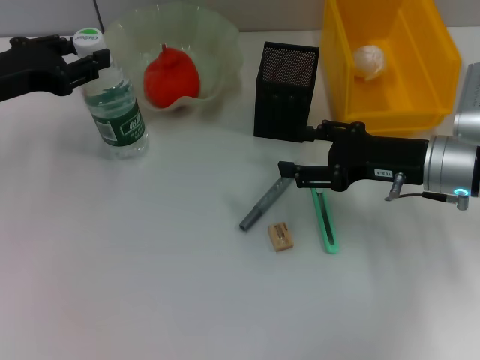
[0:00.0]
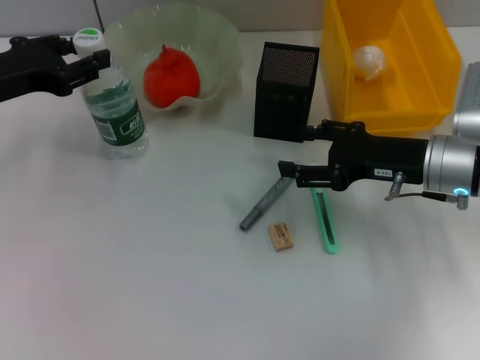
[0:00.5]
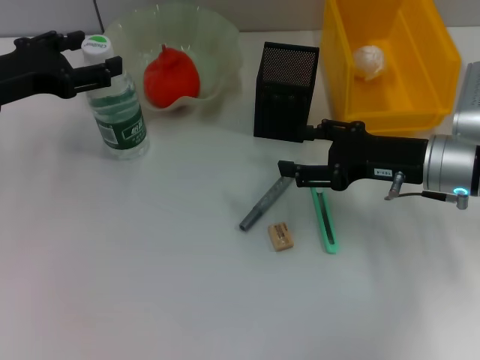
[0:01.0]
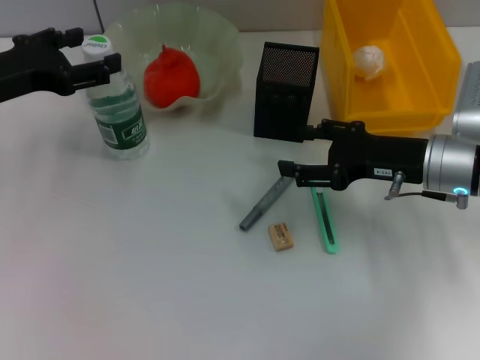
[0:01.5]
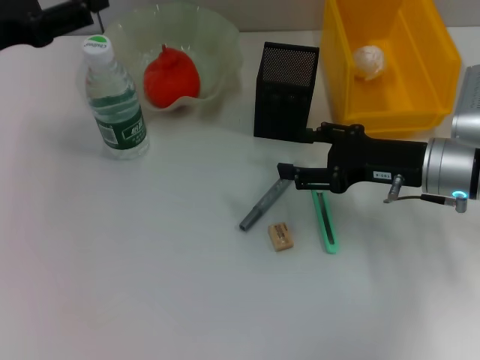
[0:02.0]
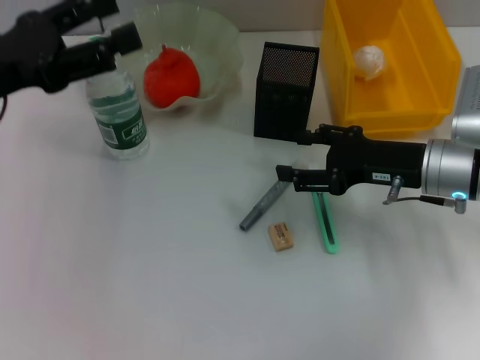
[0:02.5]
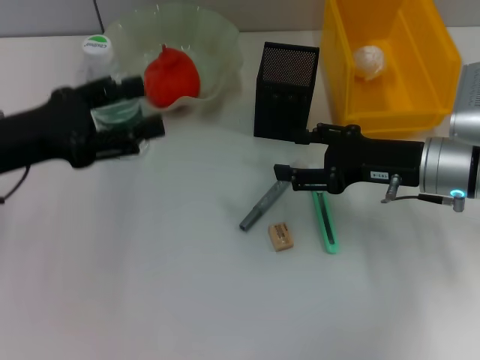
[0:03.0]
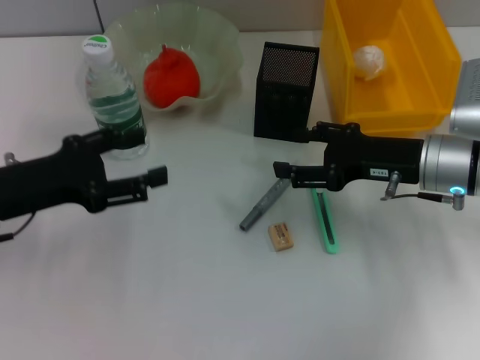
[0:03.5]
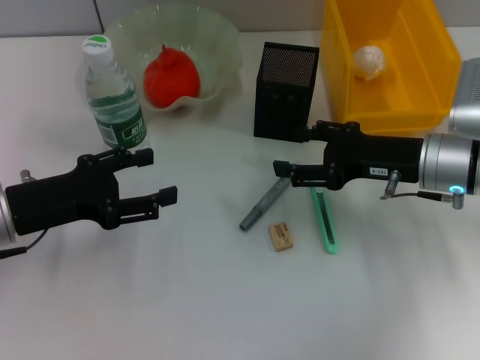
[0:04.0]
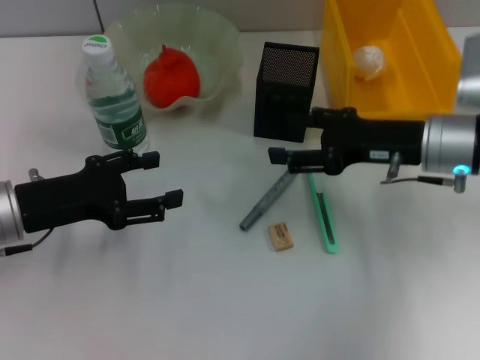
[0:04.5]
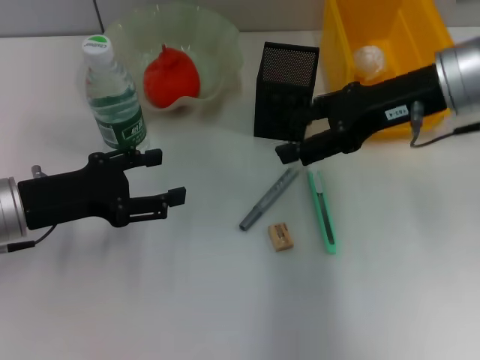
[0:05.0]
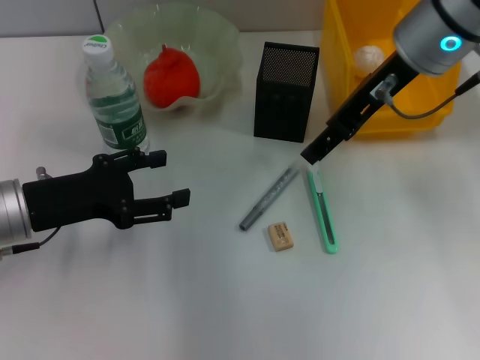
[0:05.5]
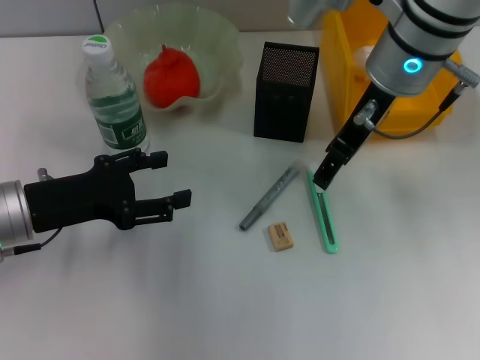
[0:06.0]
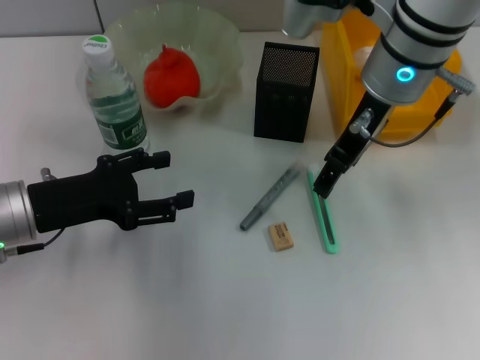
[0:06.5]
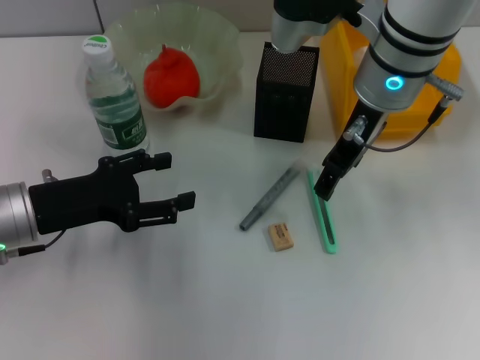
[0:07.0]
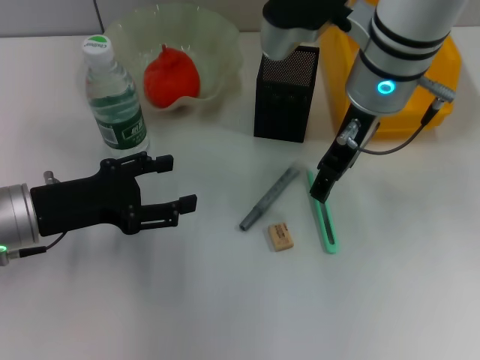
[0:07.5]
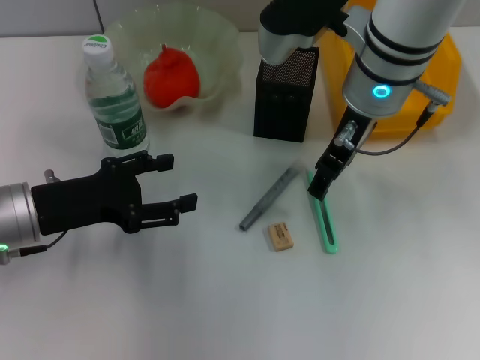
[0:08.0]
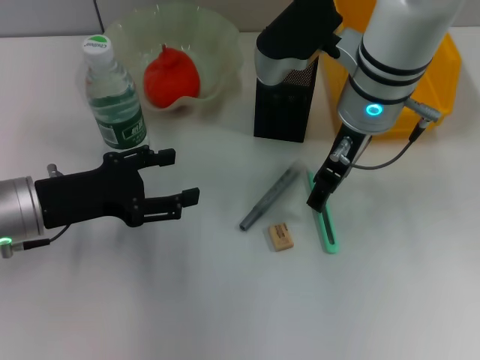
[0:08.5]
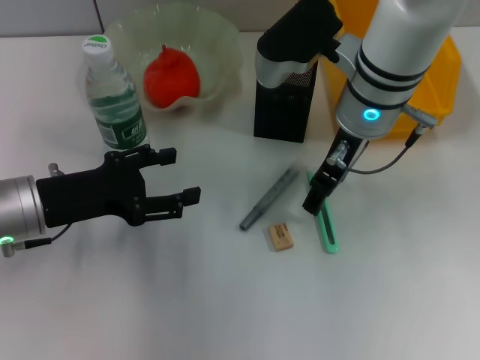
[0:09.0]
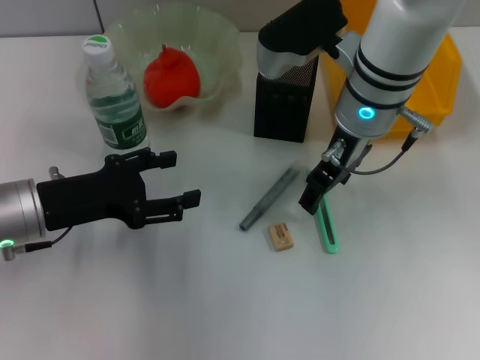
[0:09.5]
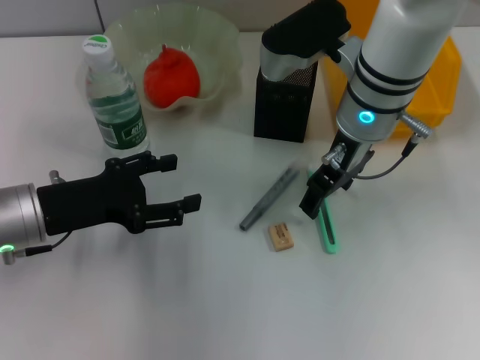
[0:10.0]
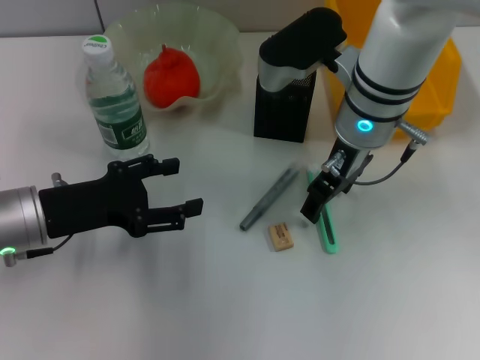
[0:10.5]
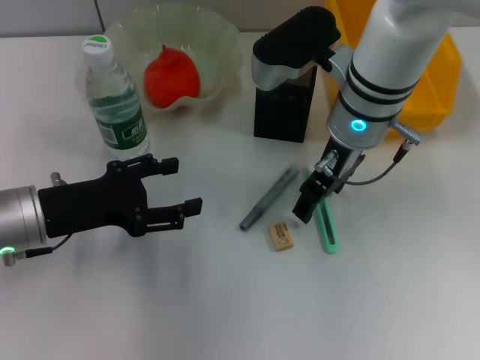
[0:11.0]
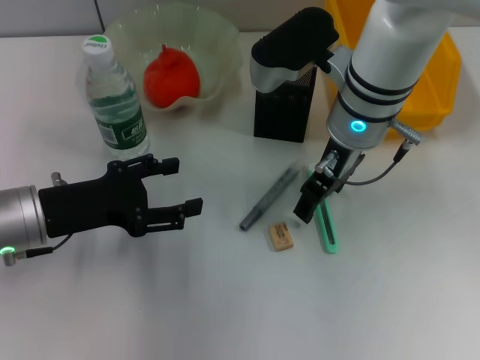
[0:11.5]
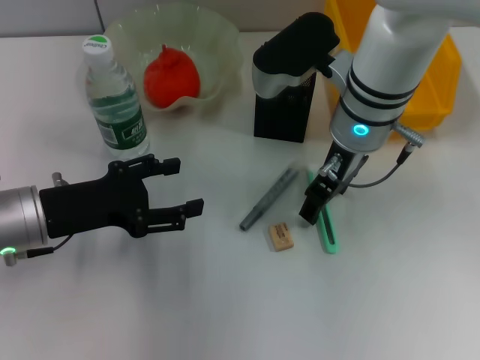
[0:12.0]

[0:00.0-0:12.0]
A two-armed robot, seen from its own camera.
0:00.0 to 0:02.0: The left gripper opens.
0:02.0 to 0:04.0: The left gripper moves downward and backward, roughly 10 cm.
0:04.0 to 0:06.0: The right gripper travels upward, to the left and forward by some 15 cm.
0:06.0 to 0:10.0: The grippers make only small movements.
0:10.0 to 0:12.0: Both grippers stay about where they are.

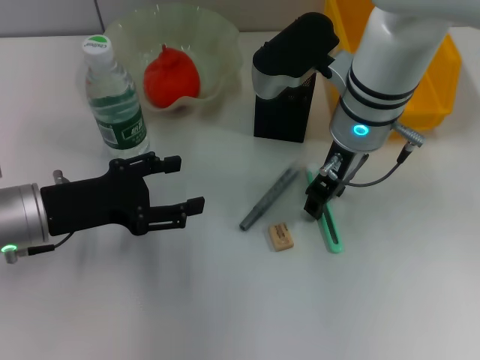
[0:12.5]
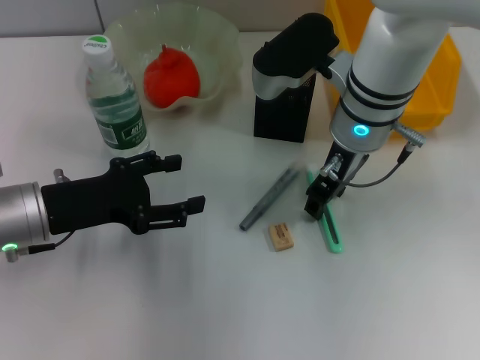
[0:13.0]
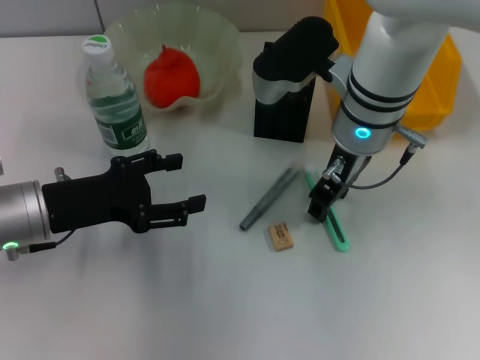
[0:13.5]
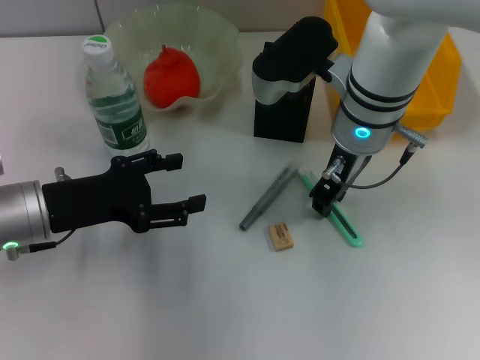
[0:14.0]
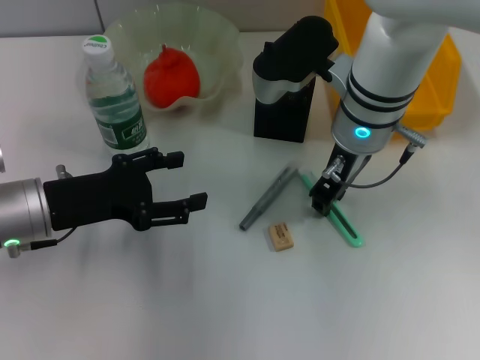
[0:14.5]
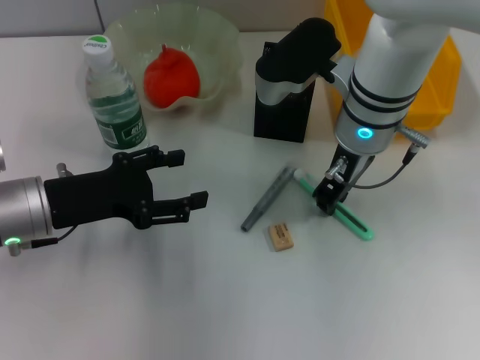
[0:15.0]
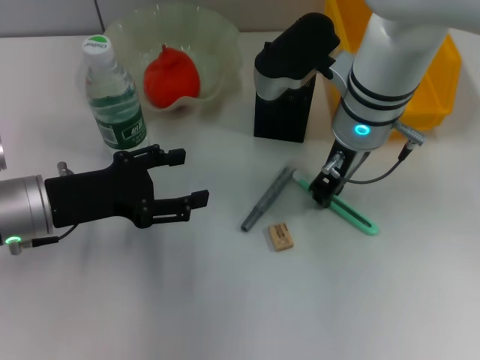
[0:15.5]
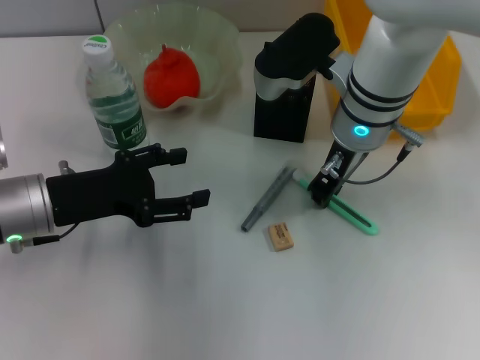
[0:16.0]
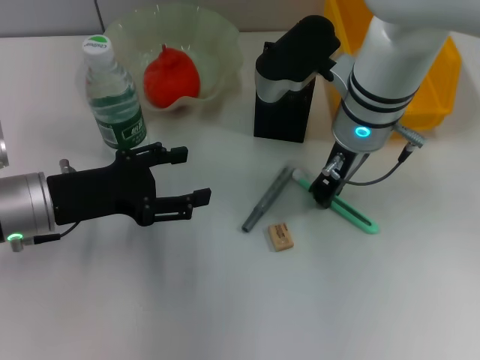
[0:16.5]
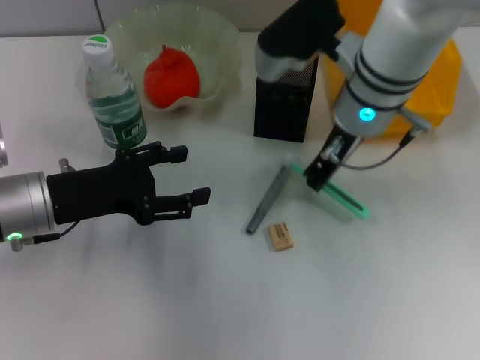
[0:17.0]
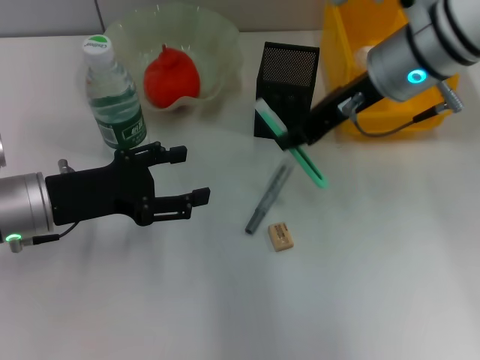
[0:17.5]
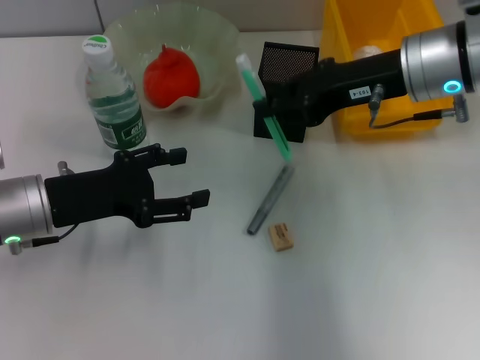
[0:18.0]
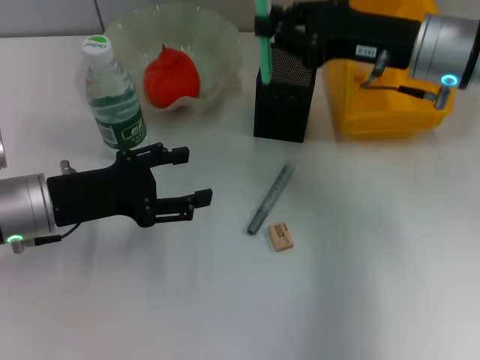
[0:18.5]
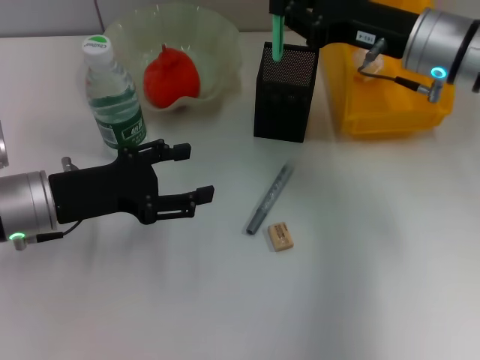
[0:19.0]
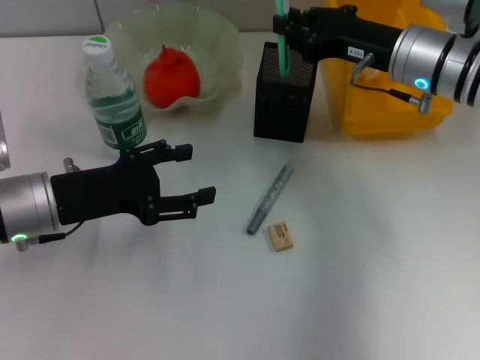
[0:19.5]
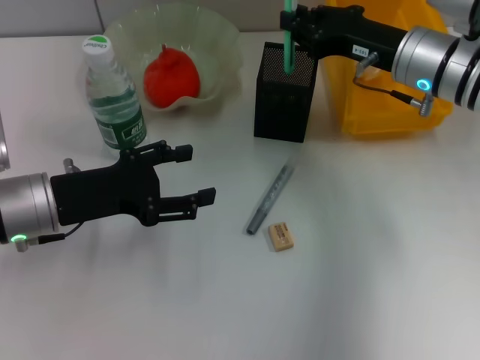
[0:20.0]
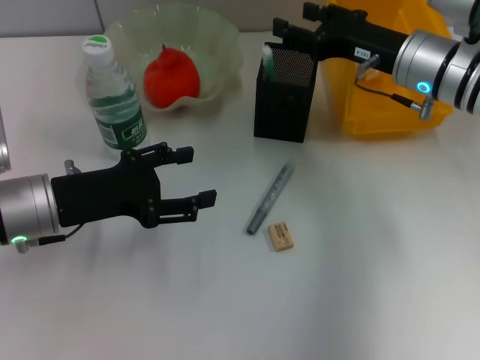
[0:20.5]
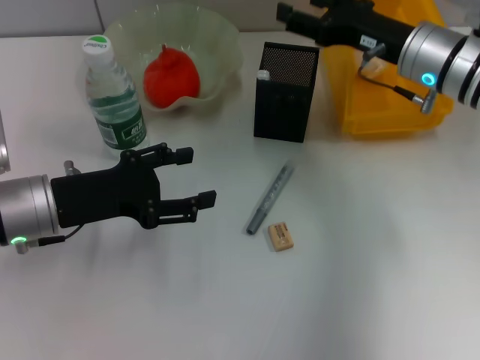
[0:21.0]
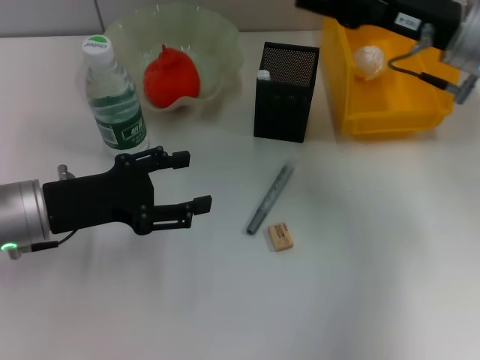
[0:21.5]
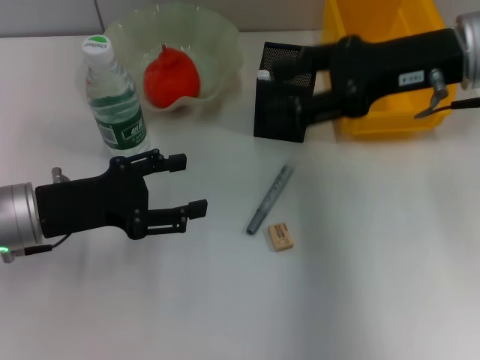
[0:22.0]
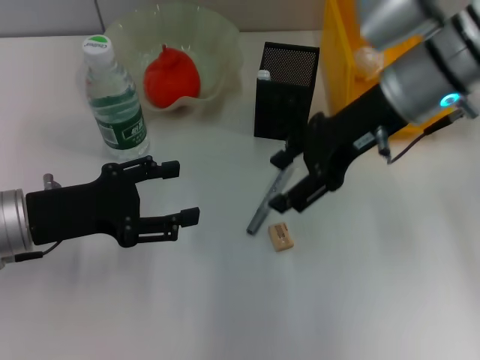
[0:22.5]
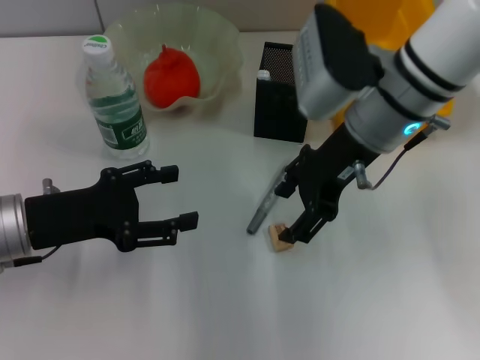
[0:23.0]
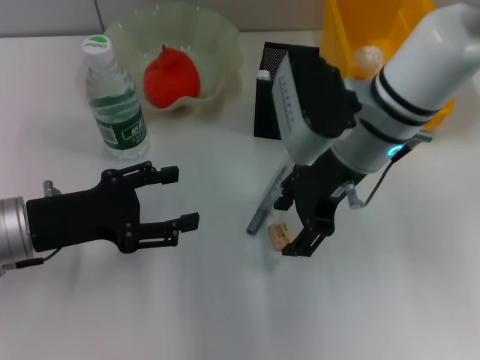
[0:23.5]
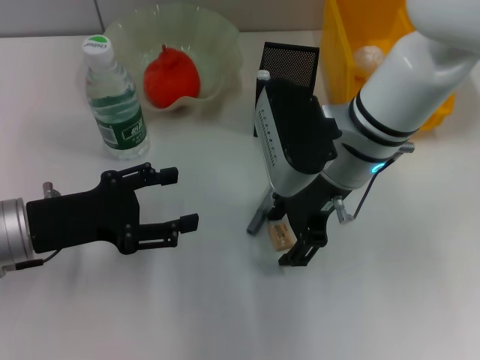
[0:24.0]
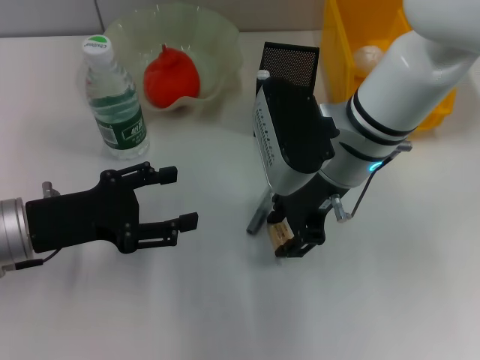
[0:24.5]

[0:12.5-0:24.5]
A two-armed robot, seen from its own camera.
Step, 0:12.5 to 0:16.0: Grab the blue utility knife with the right hand.
Step, 0:16.5 to 0:20.5: Place the blue utility knife into the pen holder with the right hand.
0:12.5 to 0:16.5: Neither gripper changes place.
0:16.5 to 0:18.5: The right gripper moves to the right, approximately 10 cm.
0:18.5 to 0:20.5: The right gripper ends up about 5 cm from where it was, and opens its fingers.
0:20.5 to 0:22.5: The right gripper travels upward by roughly 5 cm, and opens.
0:22.5 to 0:24.5: The right gripper travels to the left and downward by approximately 10 cm.

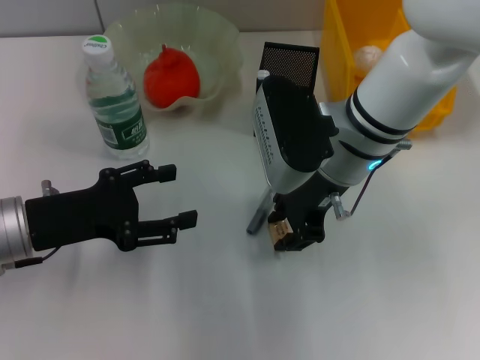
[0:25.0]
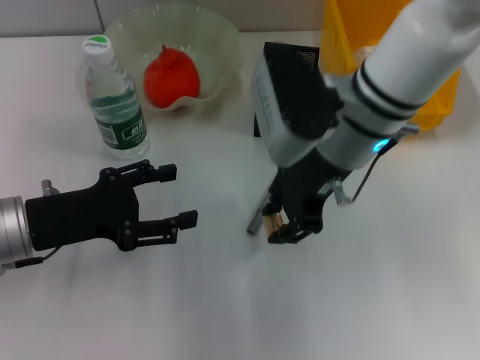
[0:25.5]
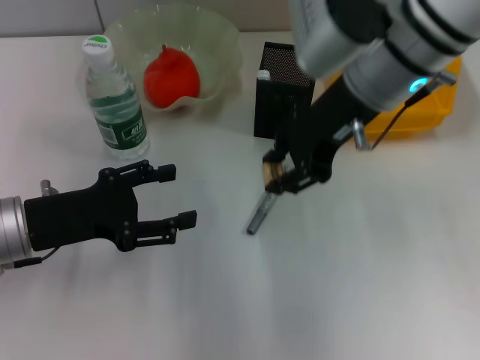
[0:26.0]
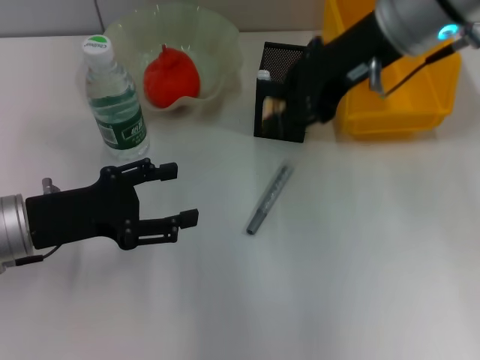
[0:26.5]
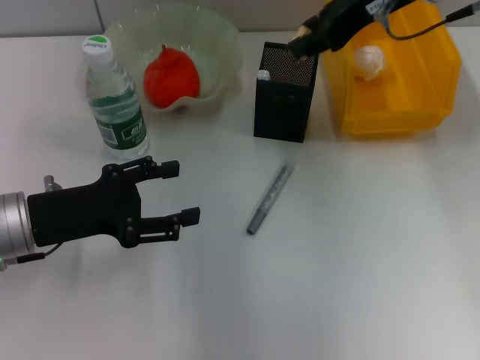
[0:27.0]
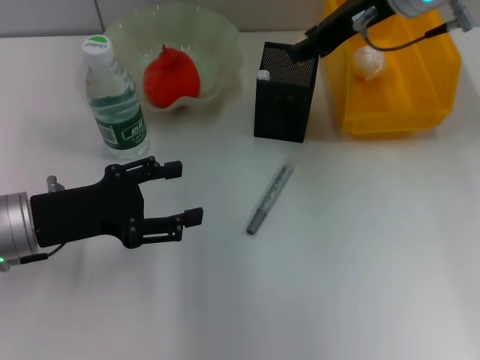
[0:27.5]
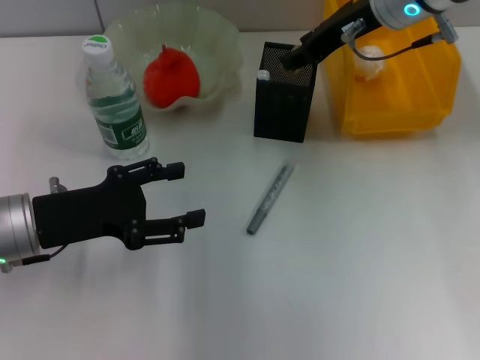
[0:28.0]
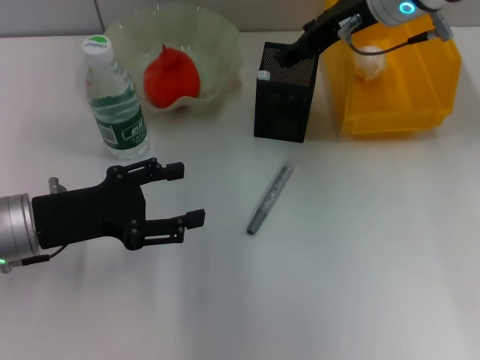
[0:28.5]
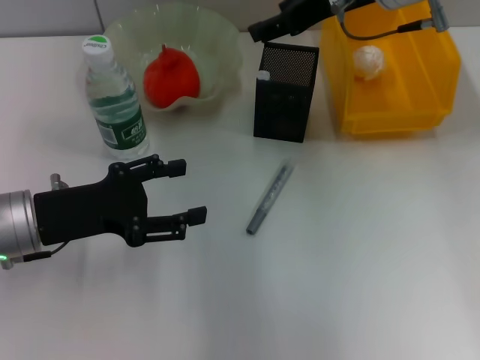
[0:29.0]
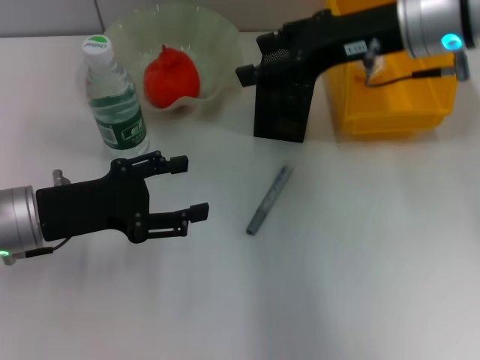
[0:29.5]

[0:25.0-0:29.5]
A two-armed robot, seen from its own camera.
Step, 0:25.5 to 0:28.0: Put the eraser into the pen holder with the right hand.
0:25.0 to 0:27.0: The right gripper travels upward, to the right and forward by approximately 15 cm.
0:27.0 to 0:29.5: The right gripper ends up about 5 cm from where it was, and opens.
